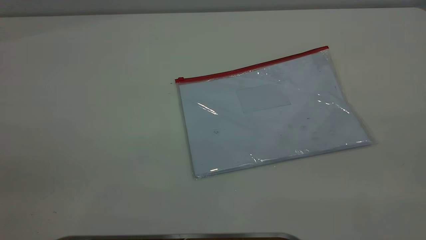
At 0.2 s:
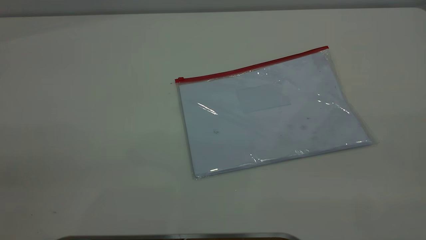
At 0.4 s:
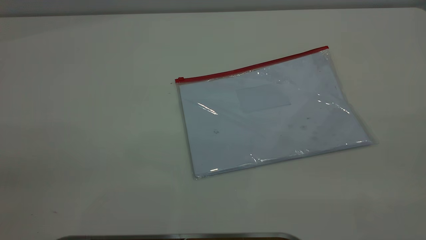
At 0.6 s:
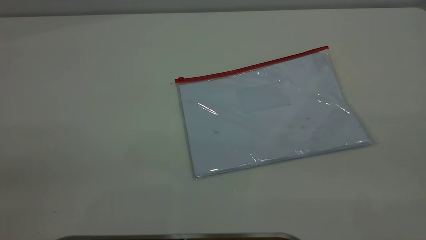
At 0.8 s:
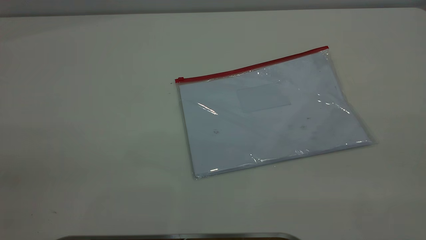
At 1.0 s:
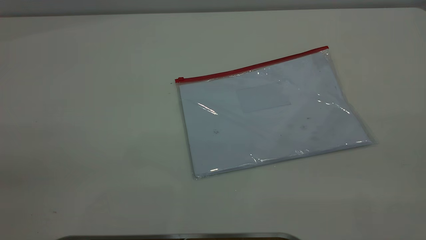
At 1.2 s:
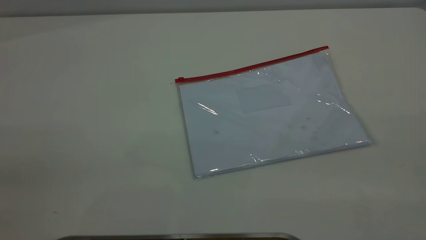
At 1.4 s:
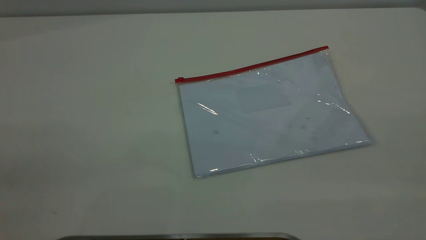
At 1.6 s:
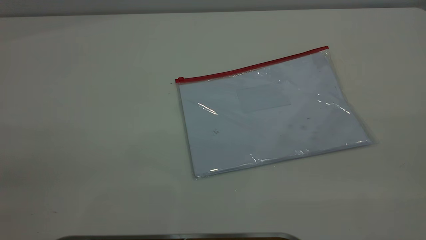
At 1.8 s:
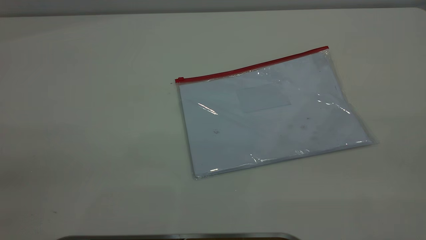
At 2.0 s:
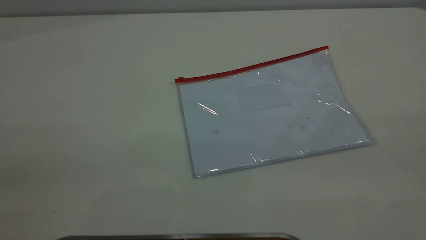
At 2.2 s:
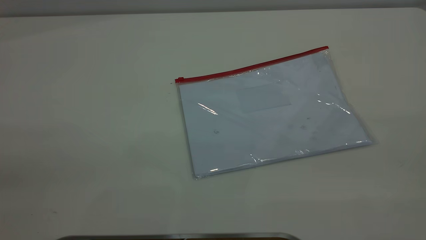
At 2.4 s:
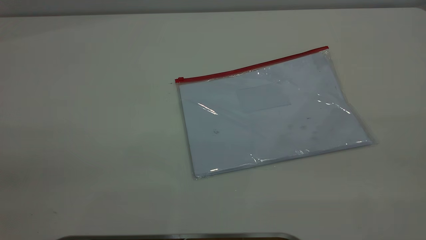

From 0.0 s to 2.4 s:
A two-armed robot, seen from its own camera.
From 1.2 s to 2.4 s: Both grippers stay about where they are.

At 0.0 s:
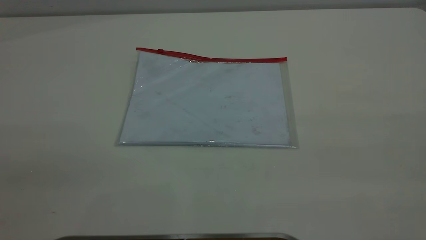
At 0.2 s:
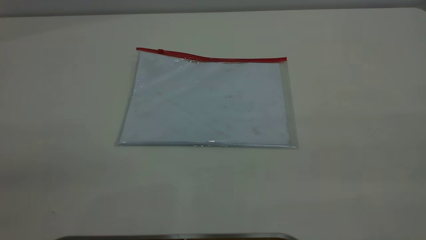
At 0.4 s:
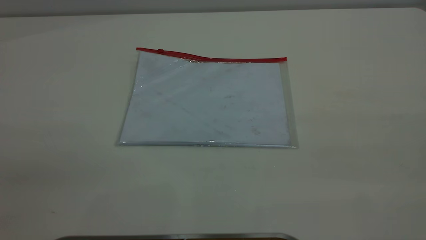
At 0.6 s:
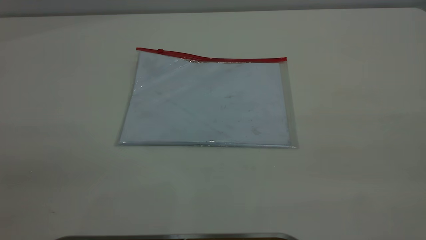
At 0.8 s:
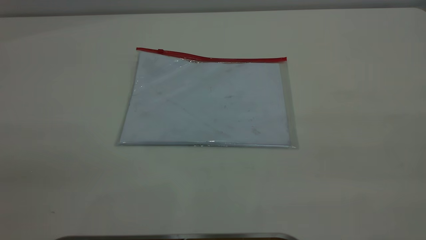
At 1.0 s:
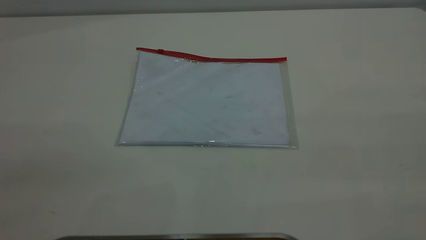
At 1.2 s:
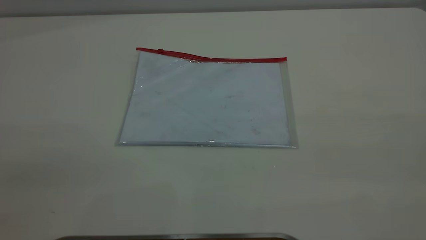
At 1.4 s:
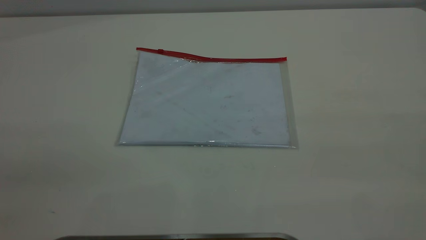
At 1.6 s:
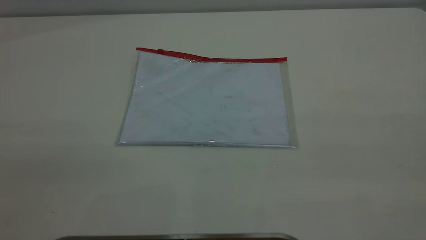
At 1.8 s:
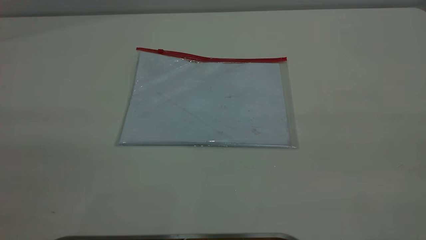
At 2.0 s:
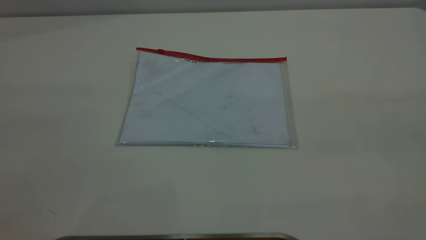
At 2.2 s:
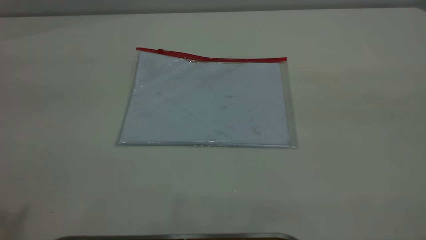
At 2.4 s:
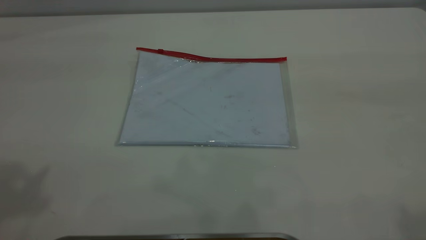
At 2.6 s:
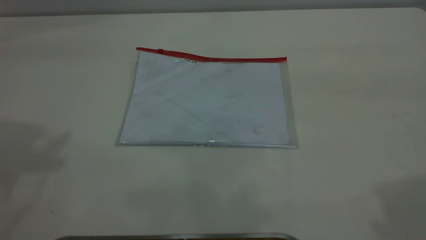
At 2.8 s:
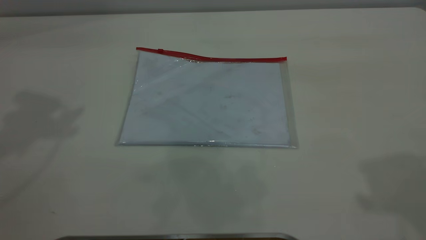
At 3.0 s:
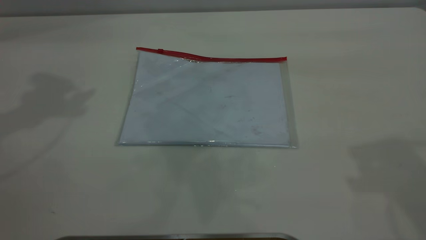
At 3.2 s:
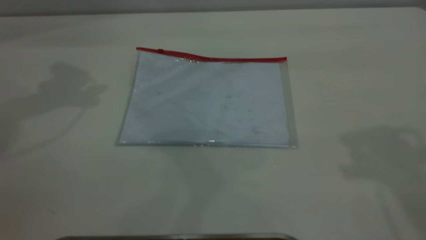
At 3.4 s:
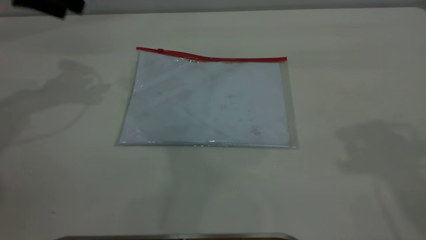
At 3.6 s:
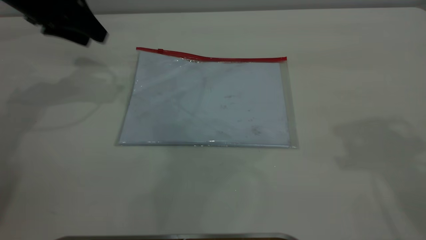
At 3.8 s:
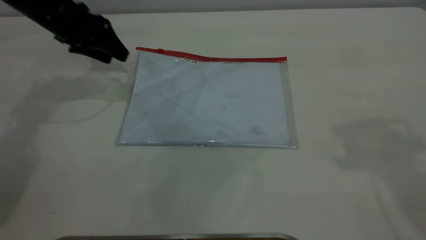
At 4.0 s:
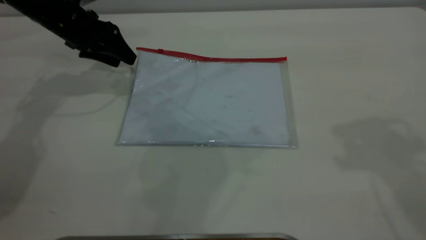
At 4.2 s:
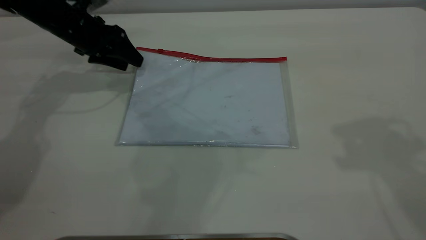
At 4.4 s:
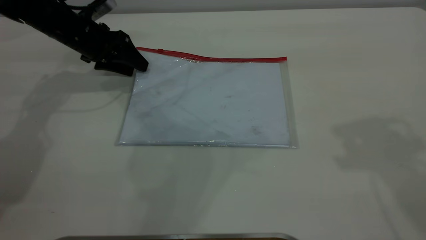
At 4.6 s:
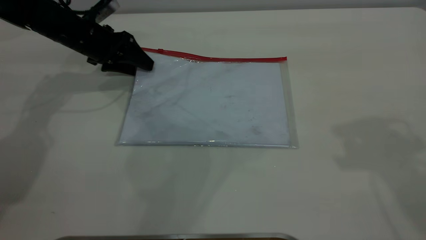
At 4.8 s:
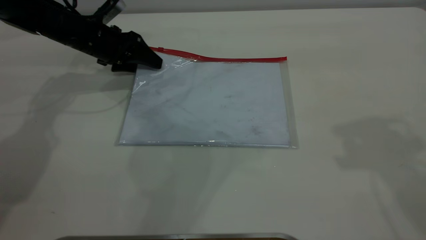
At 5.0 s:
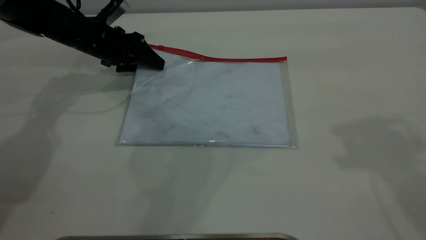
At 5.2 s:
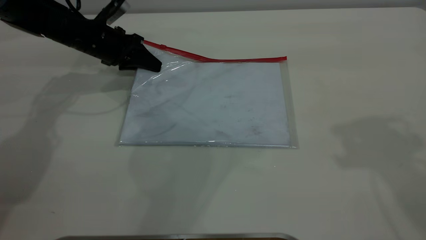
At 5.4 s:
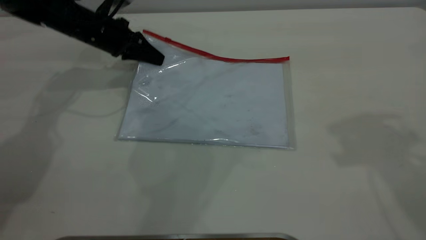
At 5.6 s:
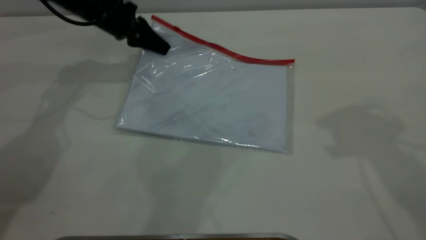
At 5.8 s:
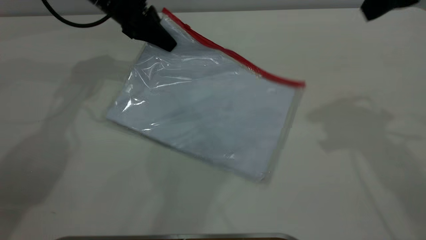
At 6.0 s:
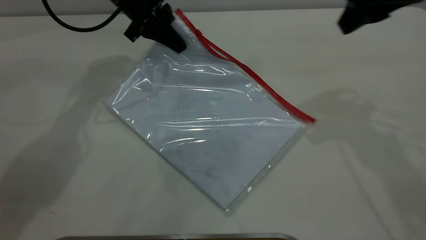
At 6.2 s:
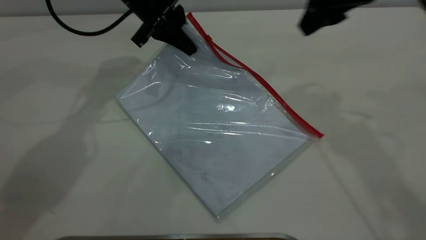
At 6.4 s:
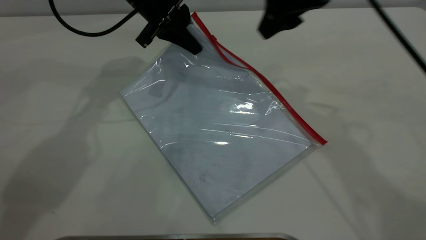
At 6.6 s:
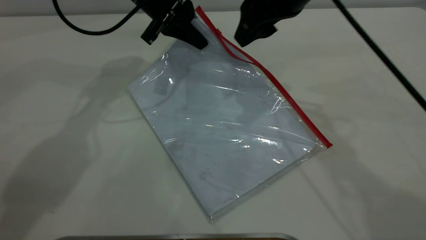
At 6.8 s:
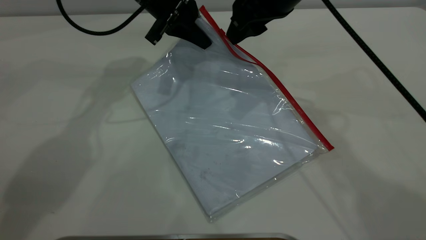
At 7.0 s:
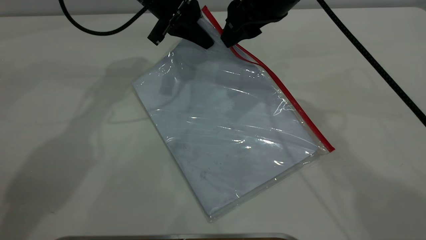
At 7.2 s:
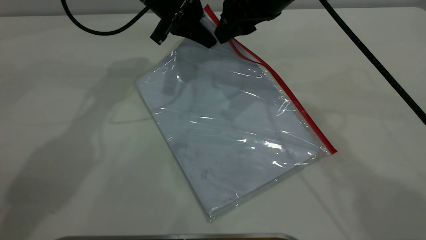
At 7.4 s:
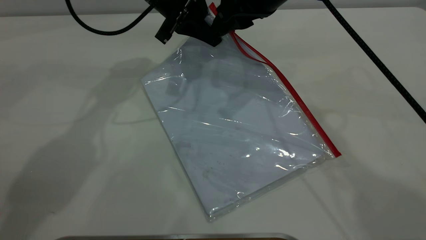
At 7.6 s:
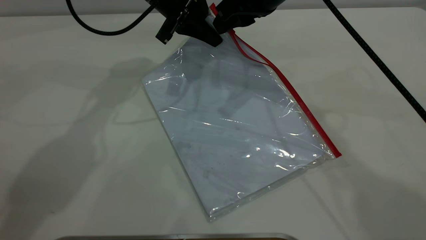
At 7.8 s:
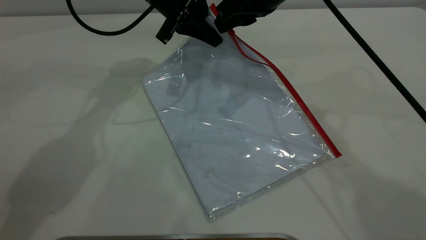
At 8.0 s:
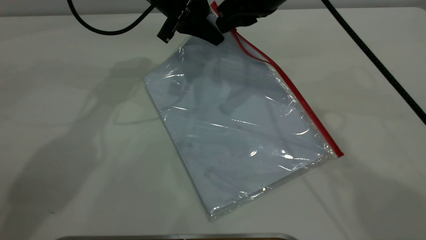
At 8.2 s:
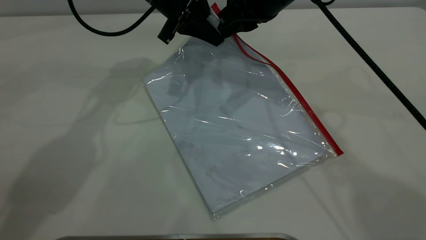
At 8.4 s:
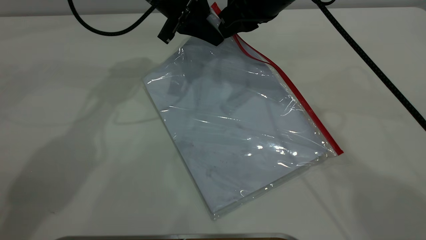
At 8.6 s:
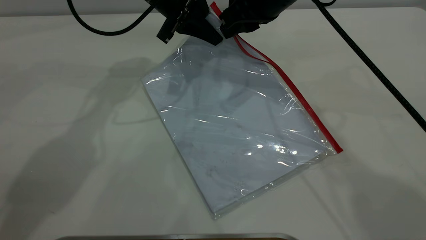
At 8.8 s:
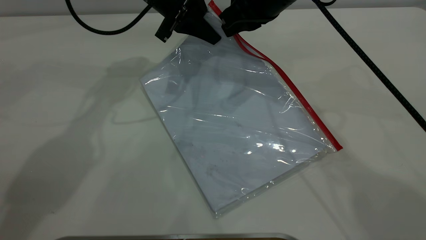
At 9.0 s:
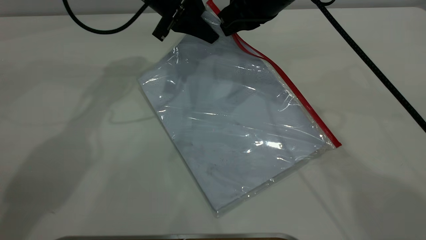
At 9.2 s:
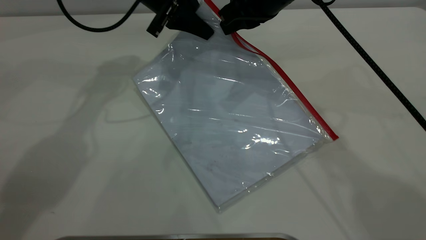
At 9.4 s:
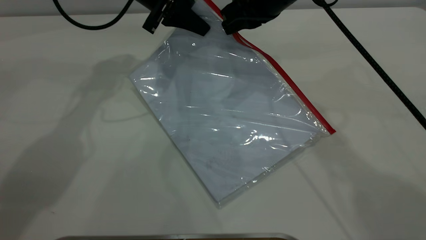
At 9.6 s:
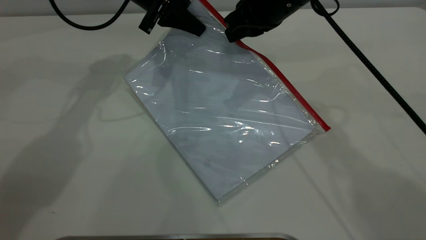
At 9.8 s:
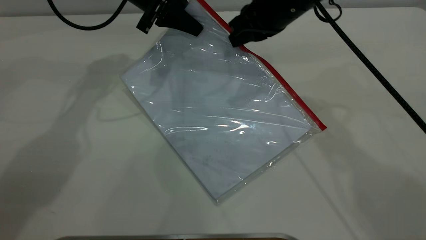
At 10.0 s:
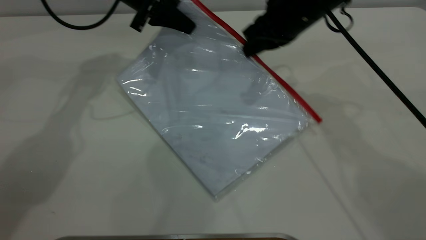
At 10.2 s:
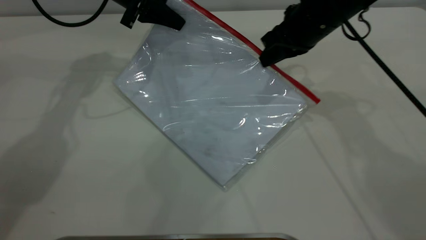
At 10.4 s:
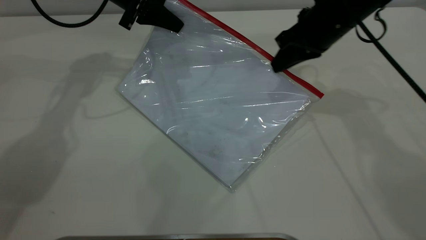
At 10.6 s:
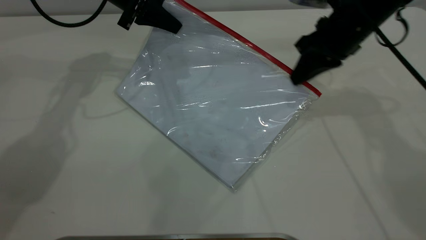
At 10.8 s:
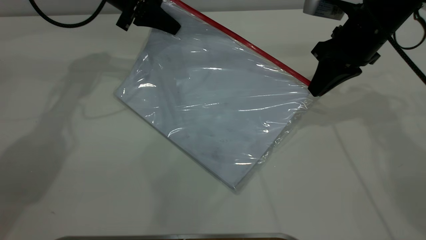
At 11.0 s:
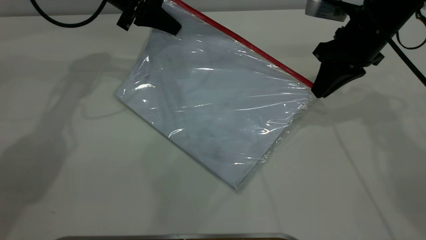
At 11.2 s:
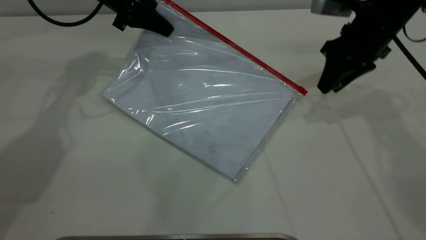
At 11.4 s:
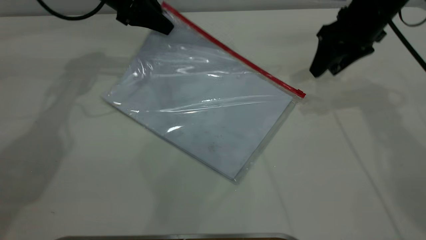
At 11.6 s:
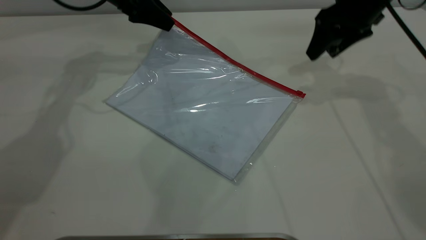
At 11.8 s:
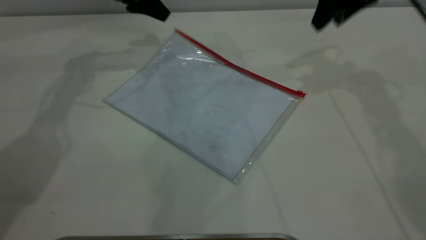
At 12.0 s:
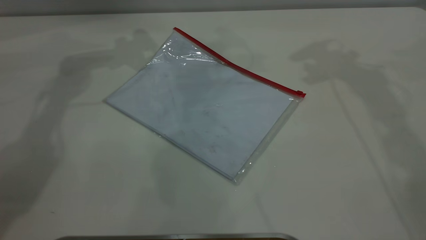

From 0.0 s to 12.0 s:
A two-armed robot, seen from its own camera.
Step, from 0.0 s to 5.6 s: Pick up the transparent plastic bag with the left gripper.
Step, from 5.8 s to 11.2 s: Pulling up the zipper on the transparent plastic bag with the right gripper to close it.
Step, from 11.4 s to 11.8 s: Place the transparent plastic bag.
From 0.0 s to 1.6 s: Both grippers stay about where they are.
From 3.0 s to 4.4 s: The left gripper shifts roughly 25 cm downward.
From 4.4 s to 6.0 s: The left gripper goes roughly 15 cm to the right and upward, and closes up. Meanwhile the right gripper goes about 15 cm downward and forward.
From 6.0 s to 7.6 s: The right gripper goes some 15 cm to the left and forward, and closes.
From 7.6 s to 9.0 s: The right gripper closes.
From 9.0 s to 10.4 s: The left gripper heads to the left, covering some 5 cm, while the right gripper shifts about 10 cm to the right and downward.
From 10.4 s to 12.0 s: The right gripper is displaced upward by some 20 cm, and opens its fingers. Meanwhile the left gripper is displaced upward by approximately 10 cm, and opens its fingers.
